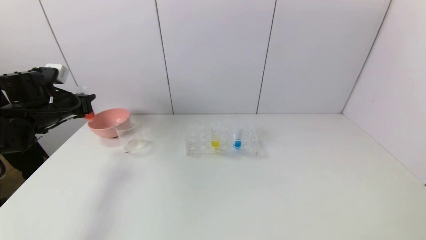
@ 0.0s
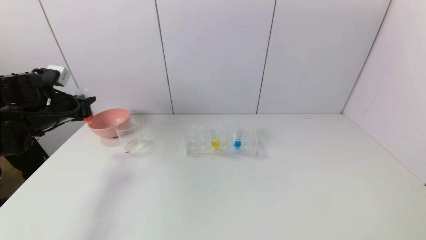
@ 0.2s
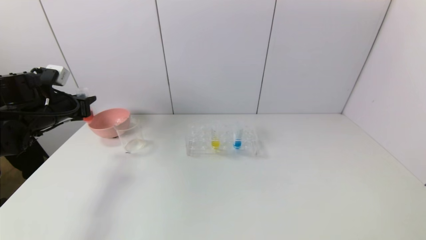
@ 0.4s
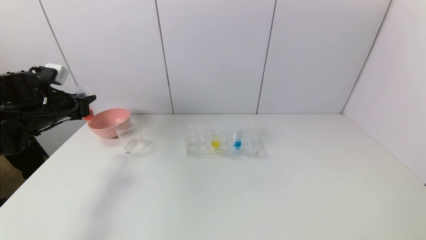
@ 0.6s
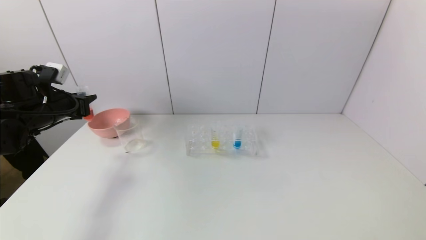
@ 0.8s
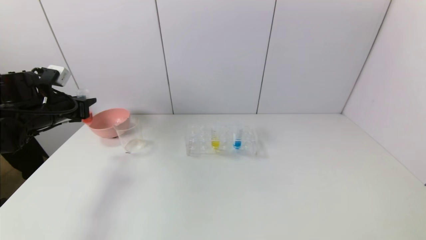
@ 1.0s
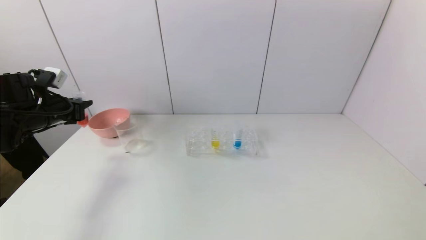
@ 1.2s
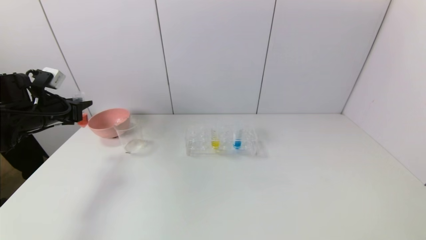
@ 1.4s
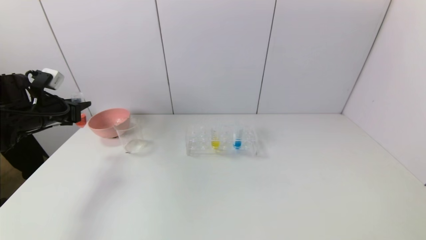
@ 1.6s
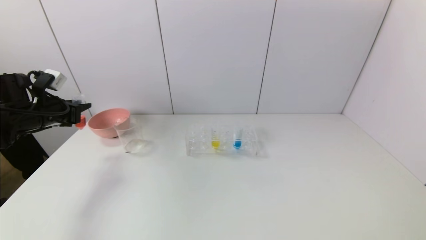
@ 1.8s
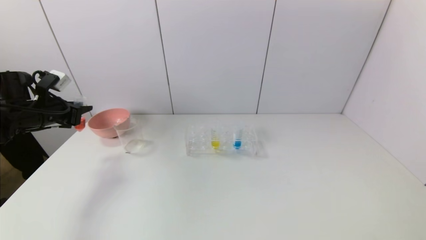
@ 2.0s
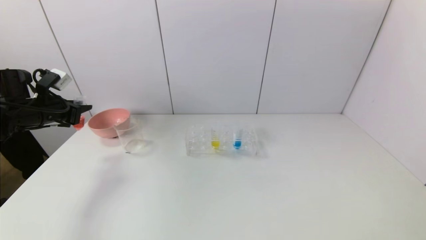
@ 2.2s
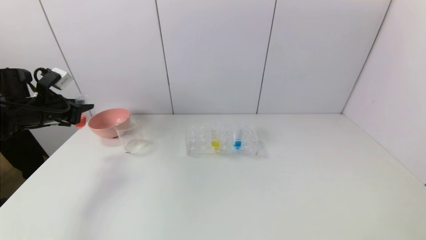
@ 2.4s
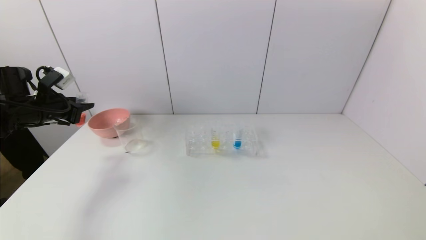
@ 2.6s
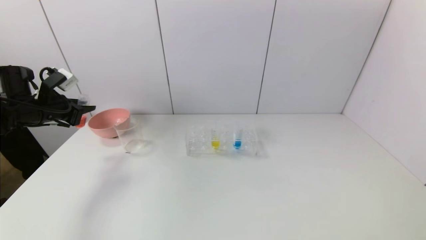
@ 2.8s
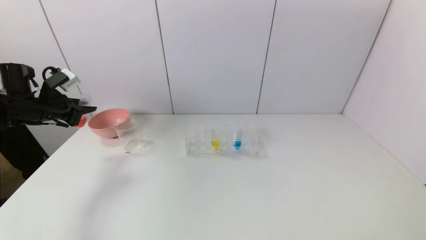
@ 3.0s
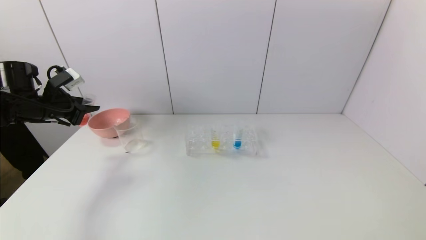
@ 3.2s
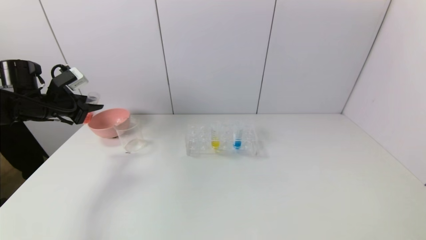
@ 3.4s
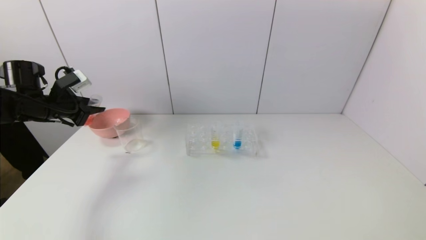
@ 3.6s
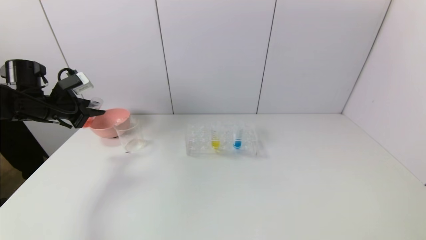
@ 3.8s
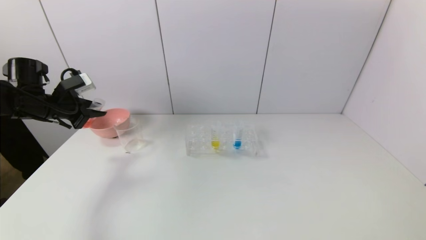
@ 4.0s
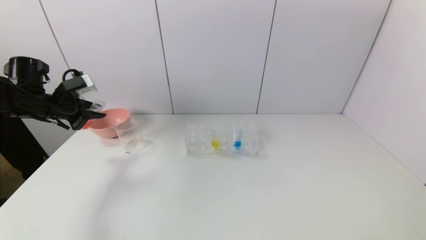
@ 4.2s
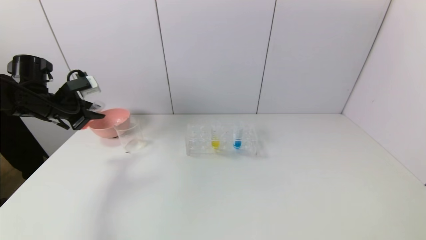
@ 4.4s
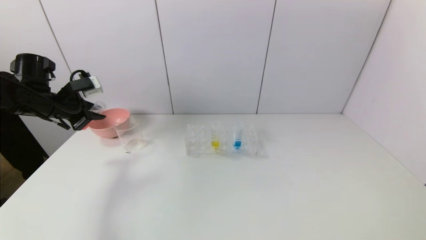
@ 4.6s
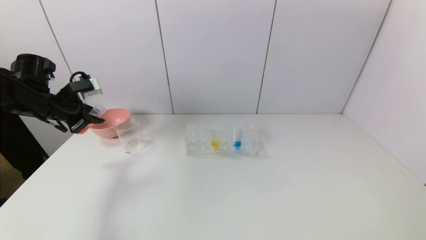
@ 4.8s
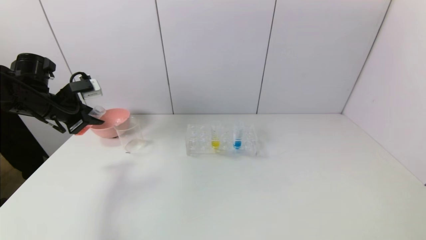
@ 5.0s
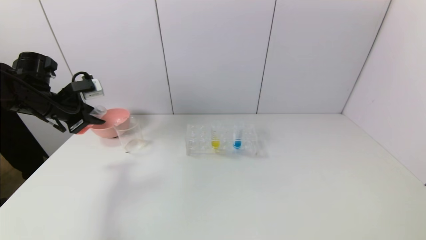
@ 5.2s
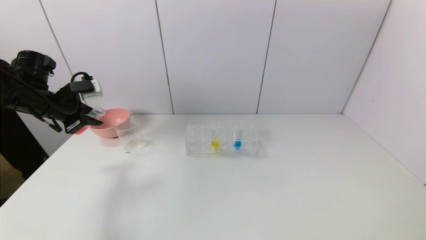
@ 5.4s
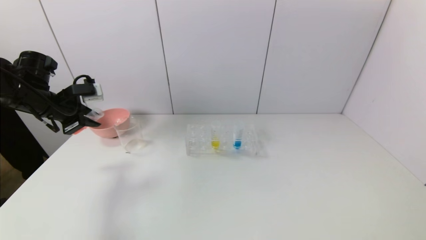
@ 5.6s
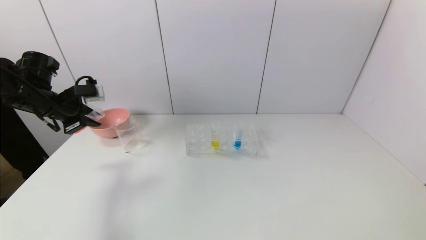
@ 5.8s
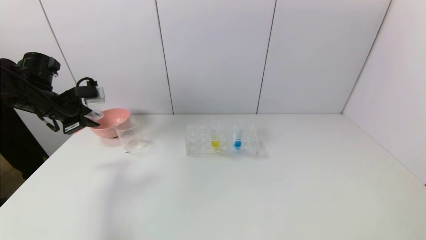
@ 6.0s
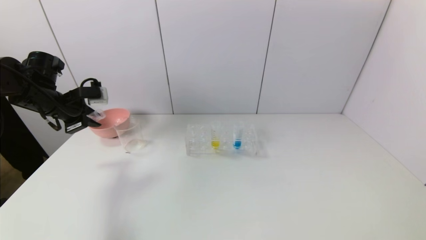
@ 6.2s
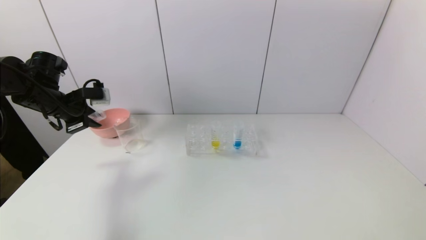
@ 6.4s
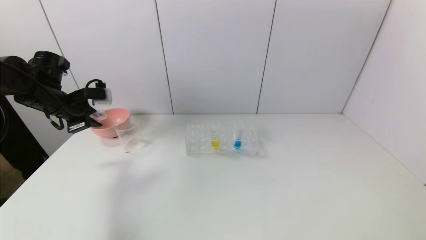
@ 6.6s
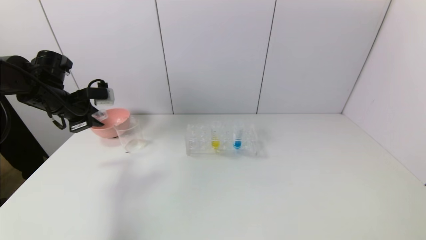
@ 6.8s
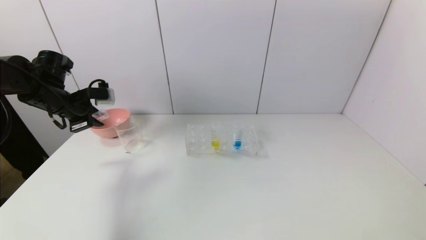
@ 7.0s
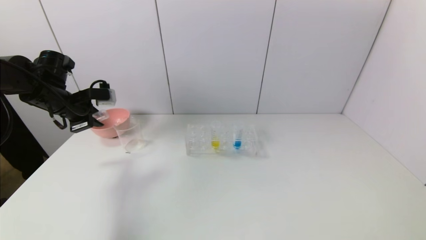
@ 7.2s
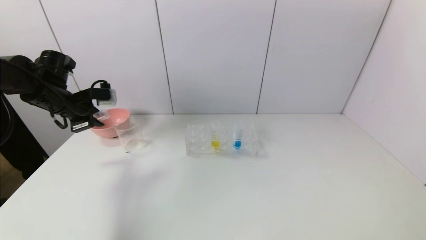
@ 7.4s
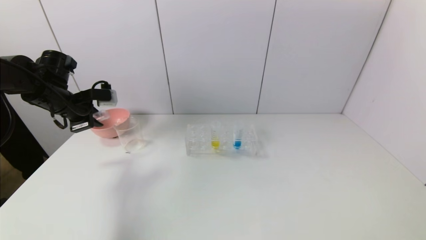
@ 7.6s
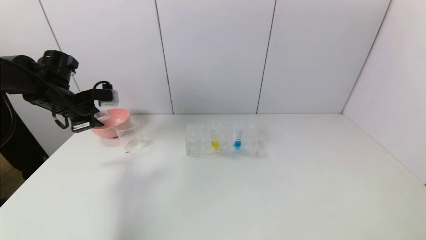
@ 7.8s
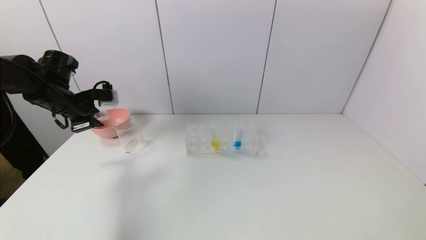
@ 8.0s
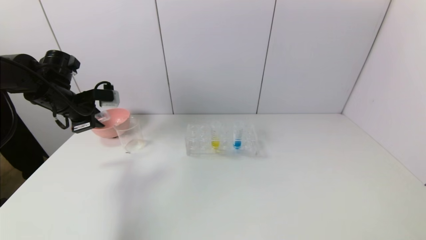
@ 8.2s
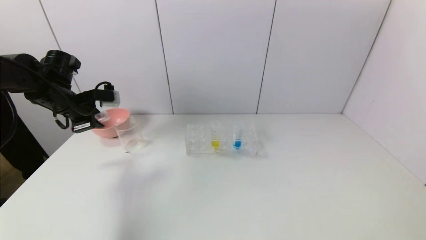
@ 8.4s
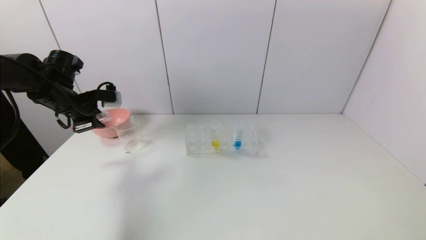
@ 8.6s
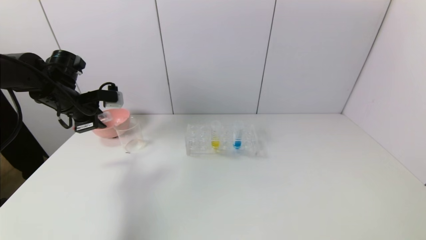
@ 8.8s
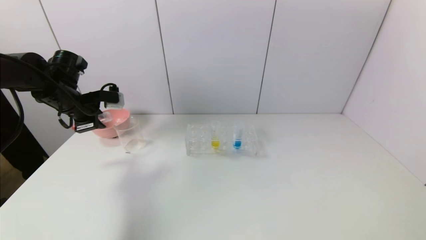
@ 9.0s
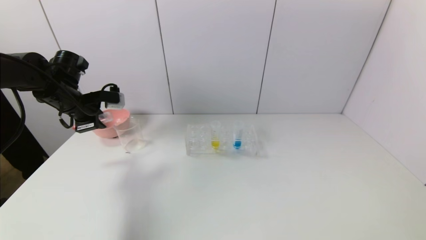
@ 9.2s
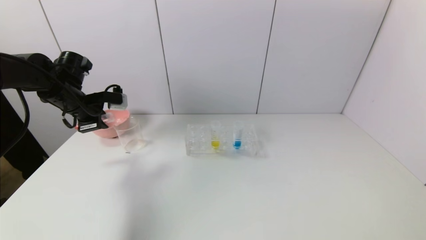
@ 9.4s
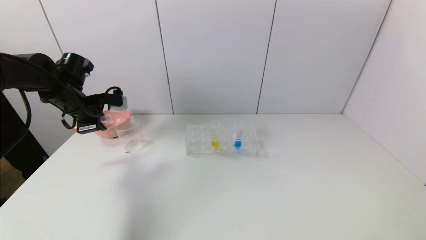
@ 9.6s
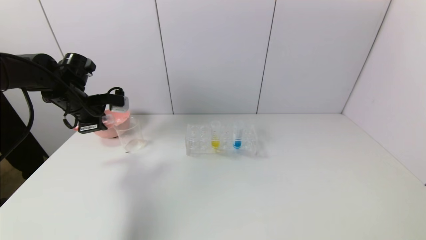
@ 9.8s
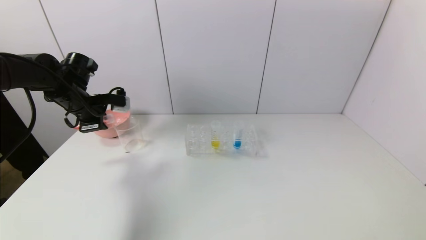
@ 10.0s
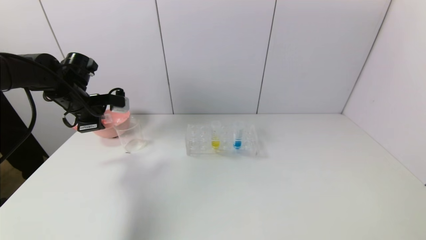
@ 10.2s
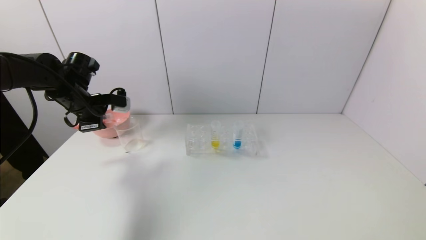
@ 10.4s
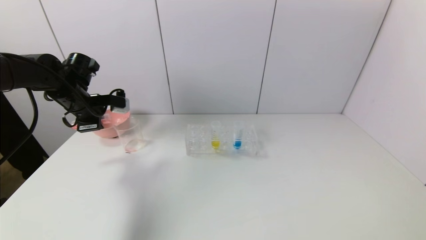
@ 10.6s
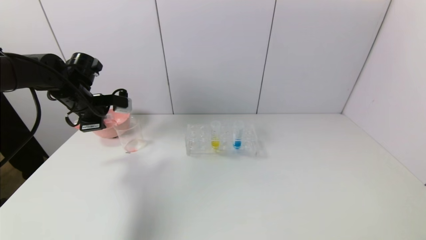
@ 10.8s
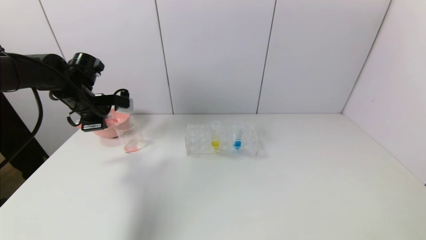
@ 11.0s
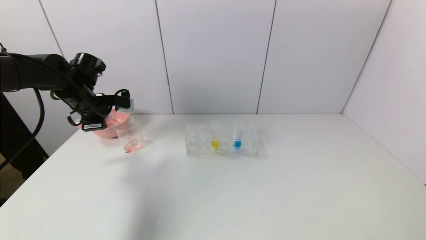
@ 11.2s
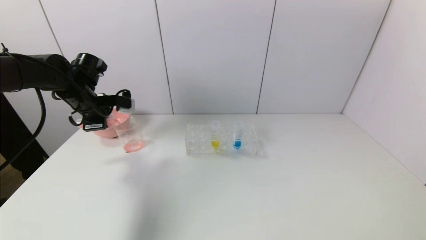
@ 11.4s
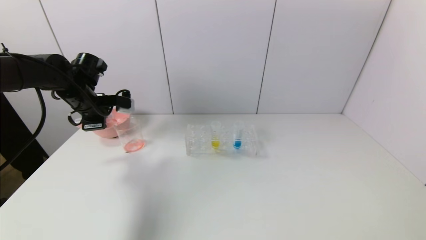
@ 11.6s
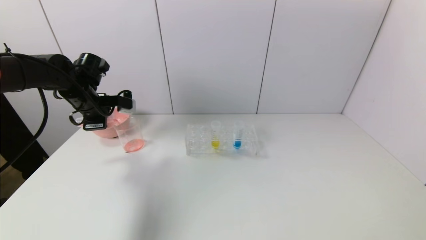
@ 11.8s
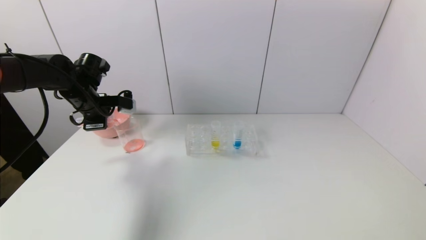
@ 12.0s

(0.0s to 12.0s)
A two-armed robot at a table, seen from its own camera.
Task of the whole recording: pick up the test tube with yellow pigment and the test tube with red pigment by grippers and pour them into the beaker.
0.0s - 1.6s: The grippers make only small movements.
4.4s - 6.0s: There are only small adjustments of the grippers.
6.0s - 9.0s: The grippers move only a little.
9.0s - 12.0s: There are only small adjustments of the grippers.

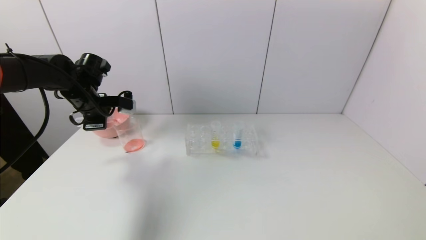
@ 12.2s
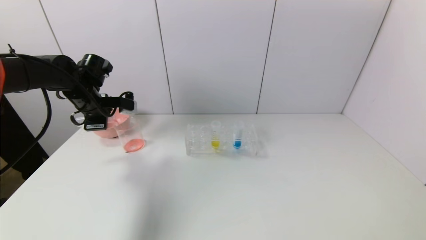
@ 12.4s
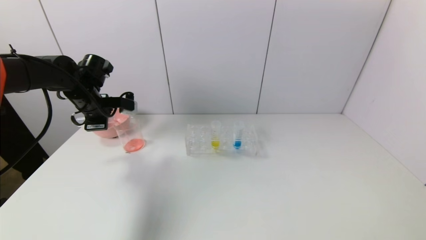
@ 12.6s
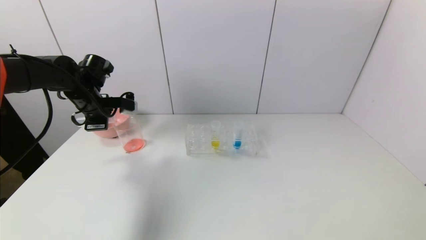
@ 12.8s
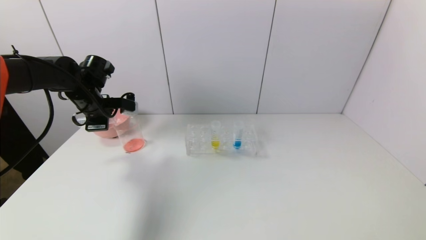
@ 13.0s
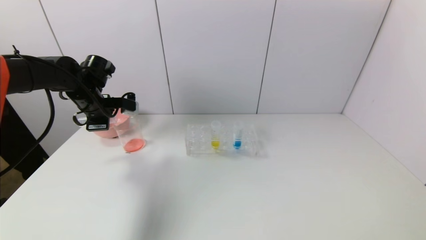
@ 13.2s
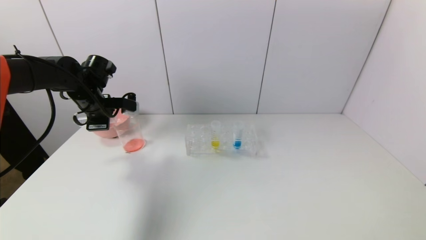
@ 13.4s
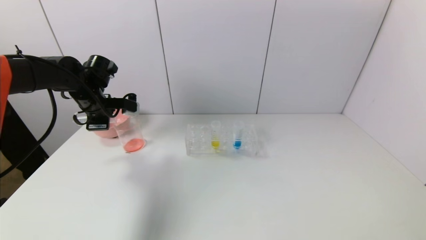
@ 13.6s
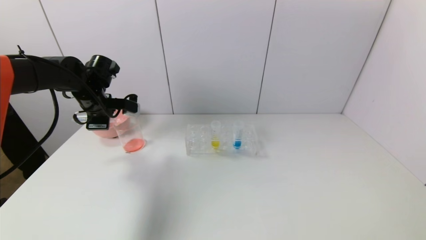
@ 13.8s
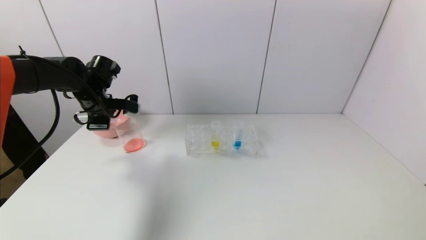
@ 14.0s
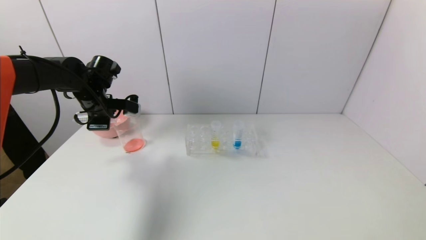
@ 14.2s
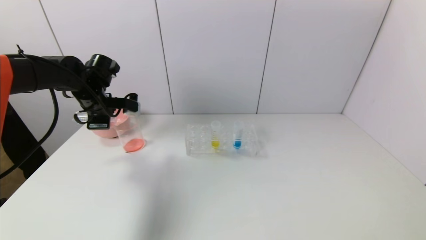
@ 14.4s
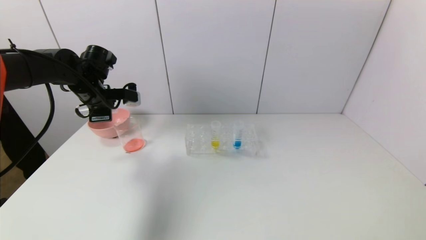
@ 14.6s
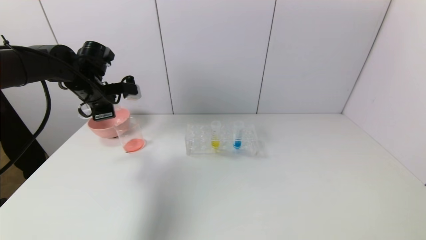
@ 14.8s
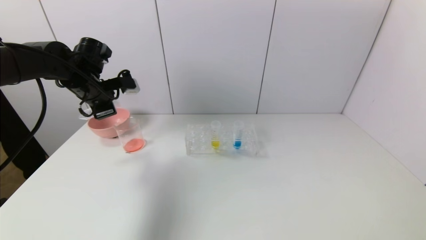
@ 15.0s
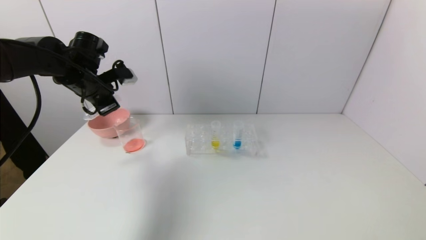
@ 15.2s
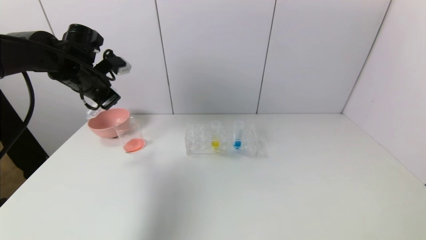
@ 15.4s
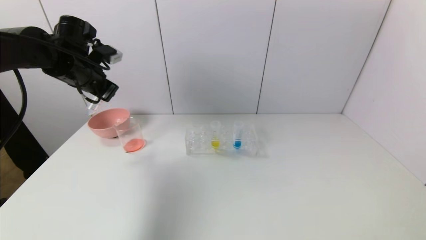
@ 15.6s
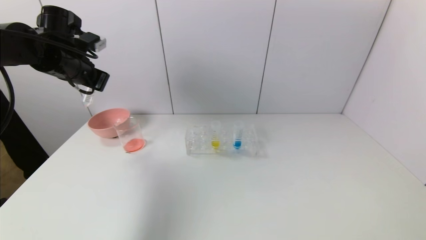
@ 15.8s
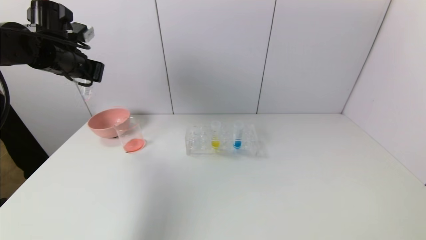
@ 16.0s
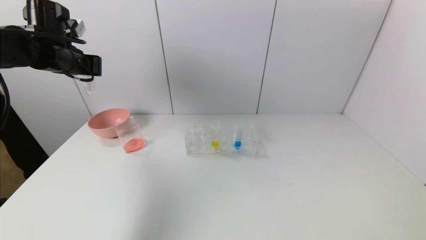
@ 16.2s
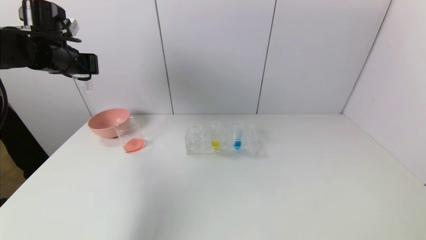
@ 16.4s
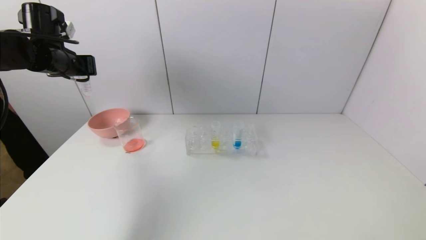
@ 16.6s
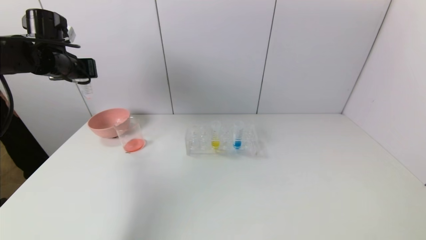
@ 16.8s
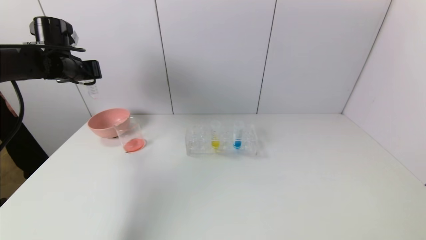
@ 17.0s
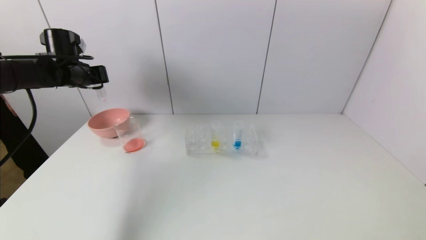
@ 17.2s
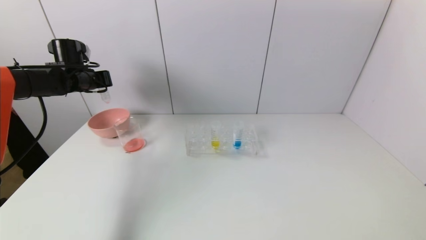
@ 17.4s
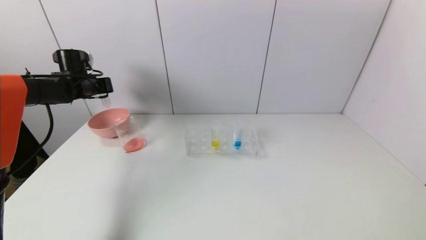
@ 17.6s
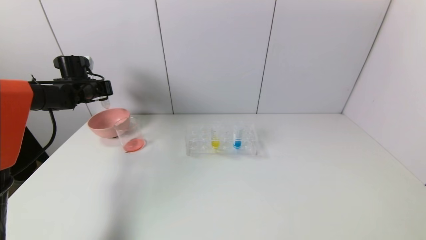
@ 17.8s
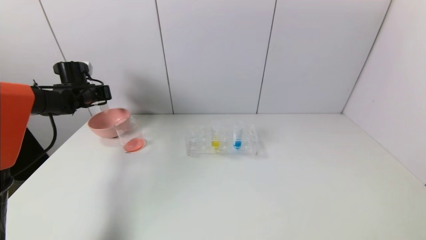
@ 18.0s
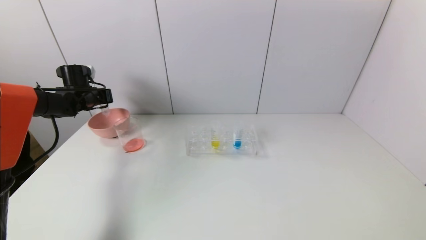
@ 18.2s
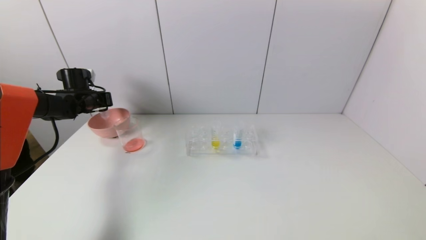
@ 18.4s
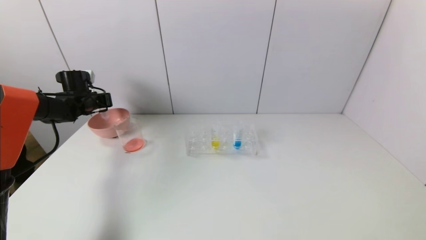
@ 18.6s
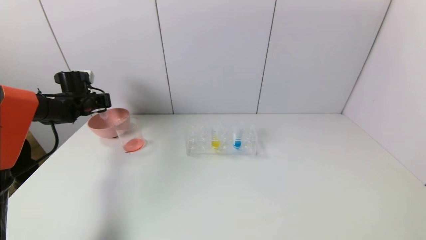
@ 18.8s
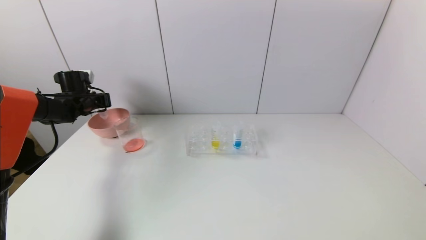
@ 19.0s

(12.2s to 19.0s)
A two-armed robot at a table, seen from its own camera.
Task of the whole recording: pick up the test tube with yellow pigment and the test tube with red pigment by grippers and pour them into the beaker.
12.2s - 13.6s: Both grippers stay about where they are.
15.0s - 16.2s: The left gripper shifts about 5 cm upward.
16.2s - 17.6s: The left gripper shifts about 15 cm downward and forward.
17.6s - 19.0s: The left gripper shifts roughly 5 cm downward.
